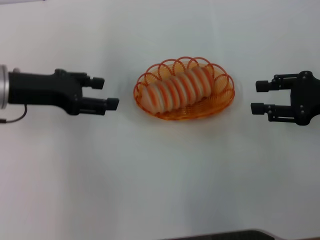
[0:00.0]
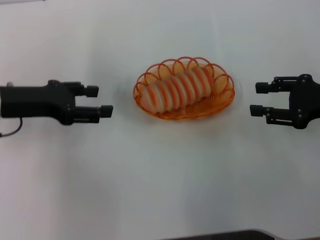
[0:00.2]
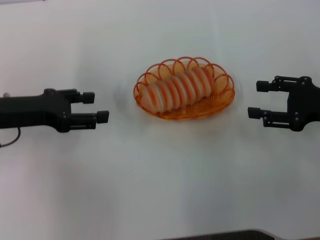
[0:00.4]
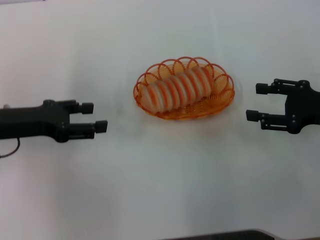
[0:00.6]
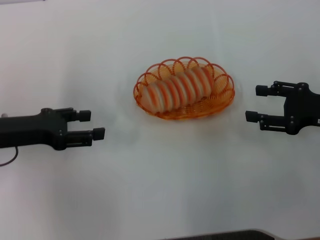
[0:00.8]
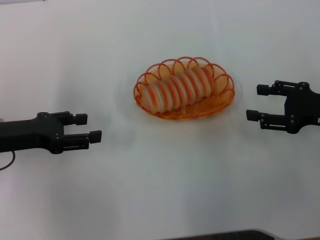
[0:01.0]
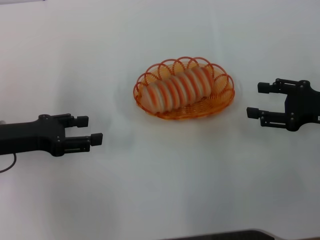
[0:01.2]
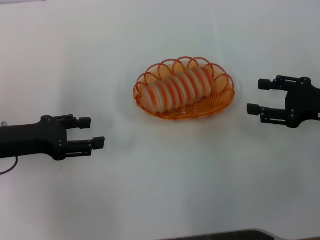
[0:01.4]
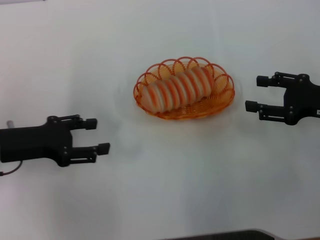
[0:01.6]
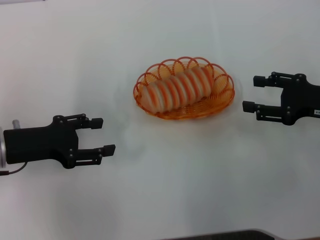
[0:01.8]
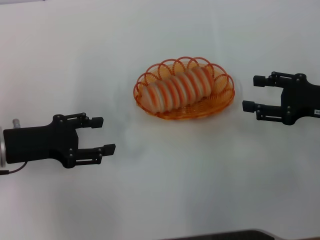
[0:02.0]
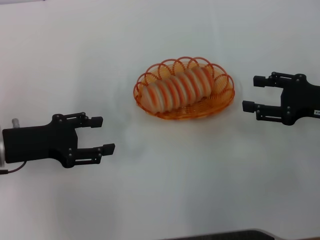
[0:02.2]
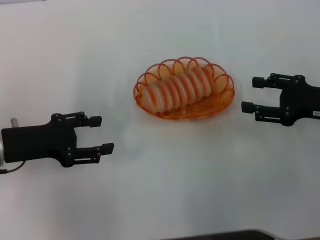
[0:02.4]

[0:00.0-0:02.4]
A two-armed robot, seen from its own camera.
0:00.0 to 0:01.2: The left gripper moves downward and backward, roughly 10 cm.
0:01.2 to 0:02.4: The grippers move only a little.

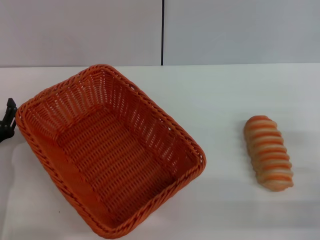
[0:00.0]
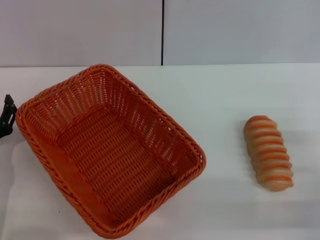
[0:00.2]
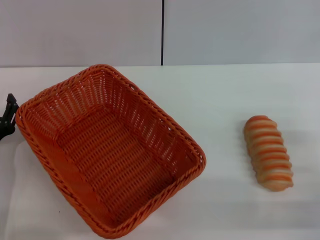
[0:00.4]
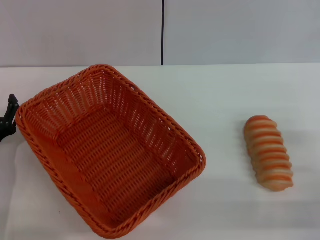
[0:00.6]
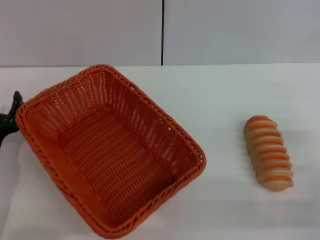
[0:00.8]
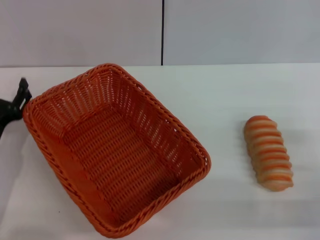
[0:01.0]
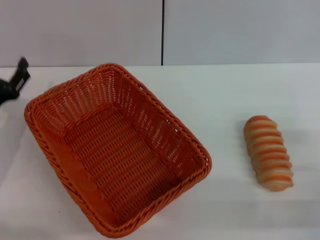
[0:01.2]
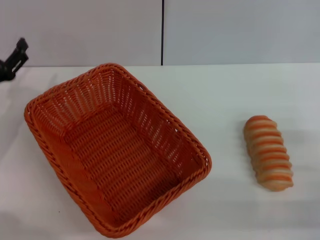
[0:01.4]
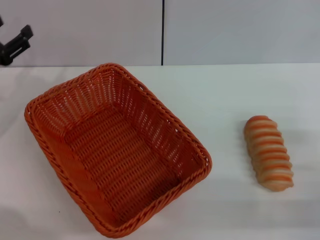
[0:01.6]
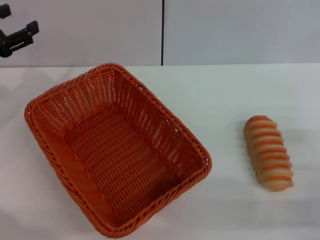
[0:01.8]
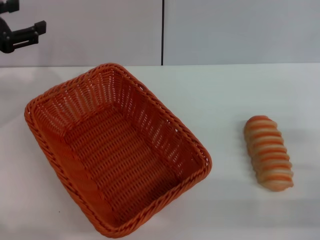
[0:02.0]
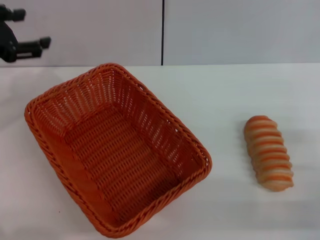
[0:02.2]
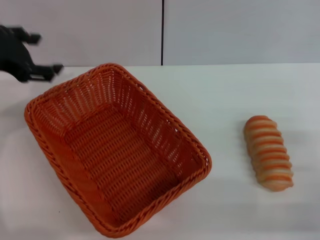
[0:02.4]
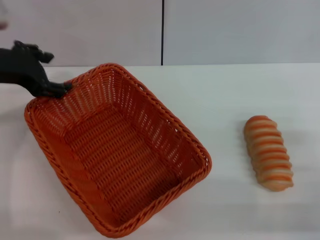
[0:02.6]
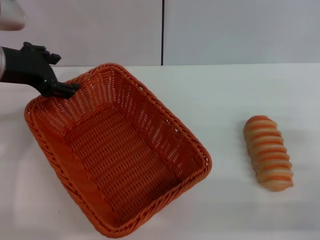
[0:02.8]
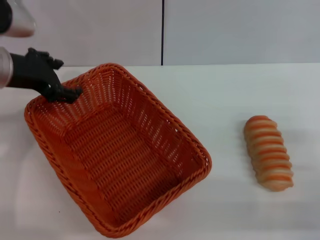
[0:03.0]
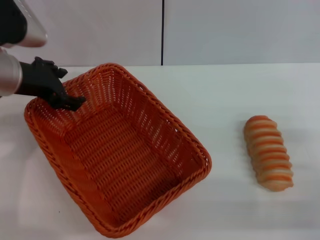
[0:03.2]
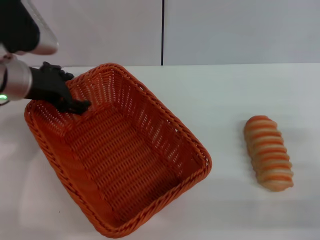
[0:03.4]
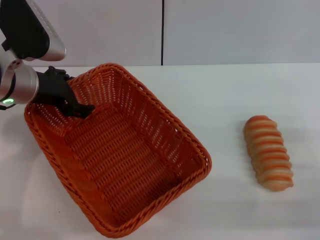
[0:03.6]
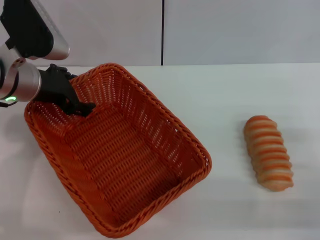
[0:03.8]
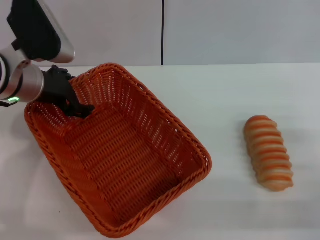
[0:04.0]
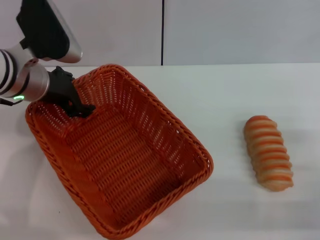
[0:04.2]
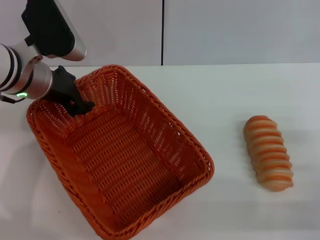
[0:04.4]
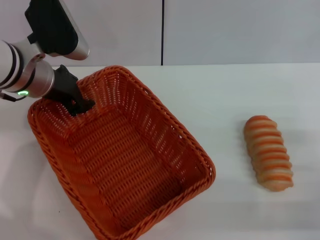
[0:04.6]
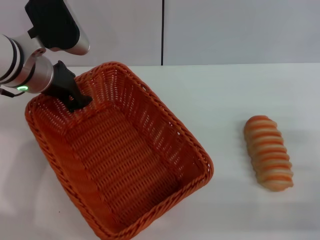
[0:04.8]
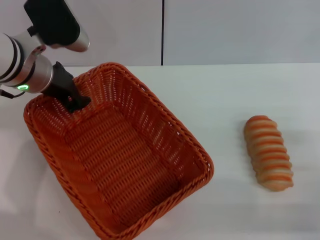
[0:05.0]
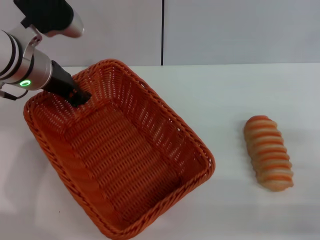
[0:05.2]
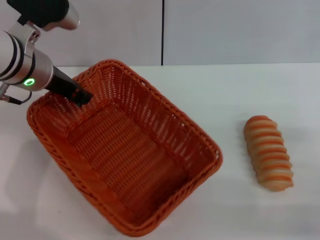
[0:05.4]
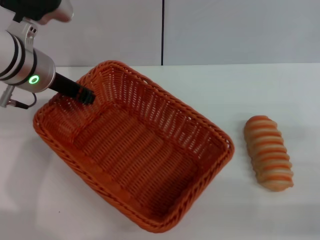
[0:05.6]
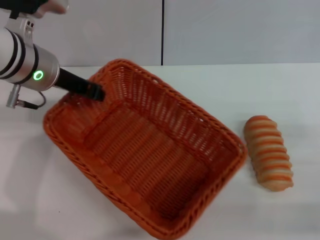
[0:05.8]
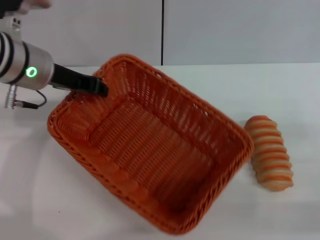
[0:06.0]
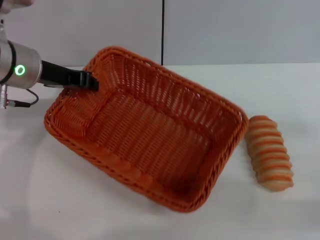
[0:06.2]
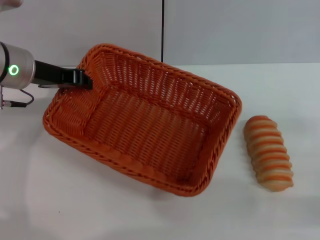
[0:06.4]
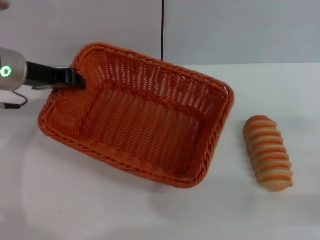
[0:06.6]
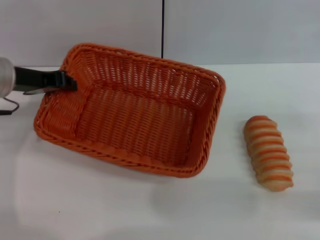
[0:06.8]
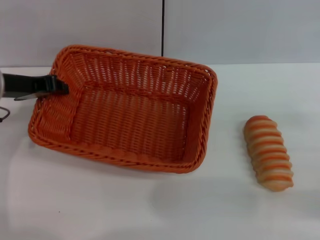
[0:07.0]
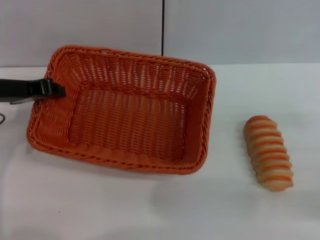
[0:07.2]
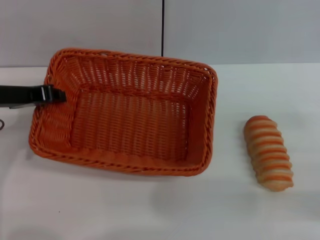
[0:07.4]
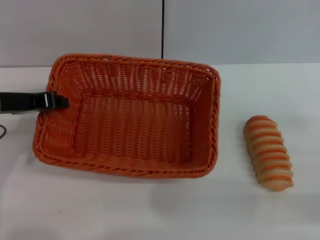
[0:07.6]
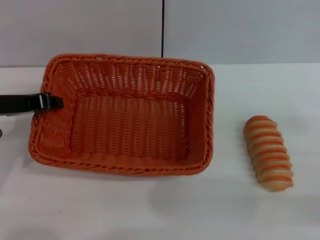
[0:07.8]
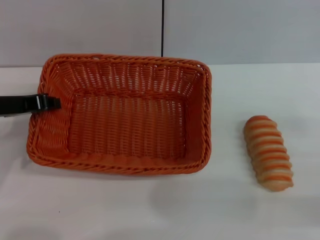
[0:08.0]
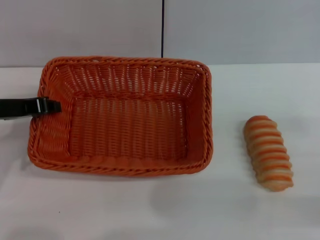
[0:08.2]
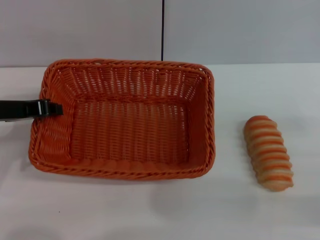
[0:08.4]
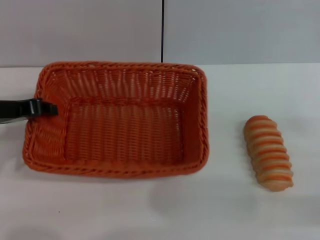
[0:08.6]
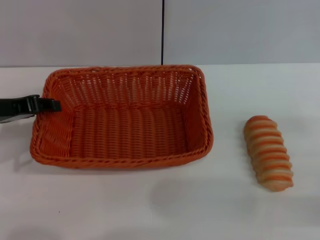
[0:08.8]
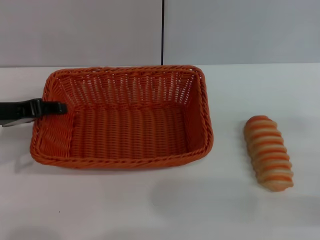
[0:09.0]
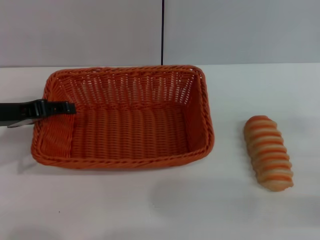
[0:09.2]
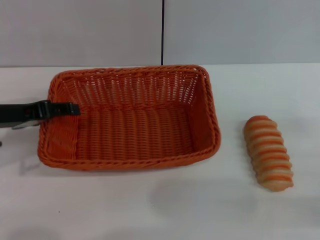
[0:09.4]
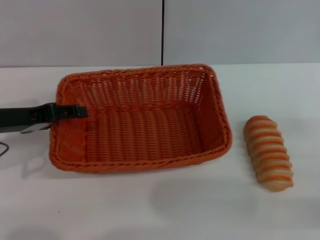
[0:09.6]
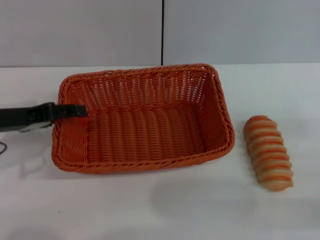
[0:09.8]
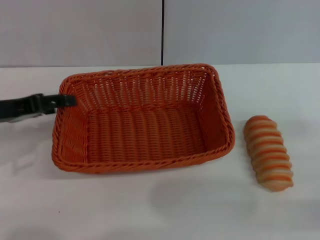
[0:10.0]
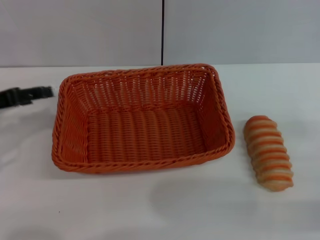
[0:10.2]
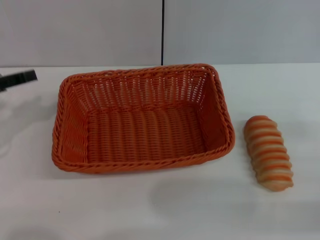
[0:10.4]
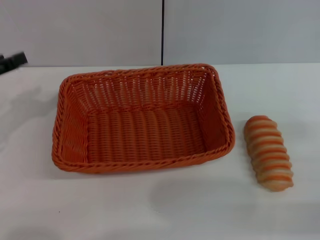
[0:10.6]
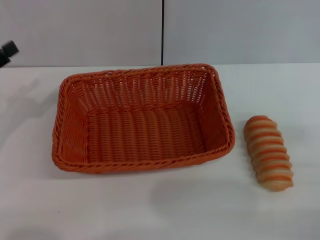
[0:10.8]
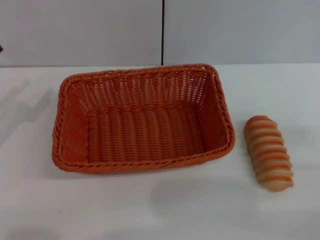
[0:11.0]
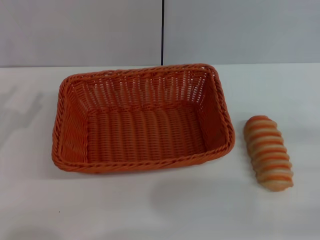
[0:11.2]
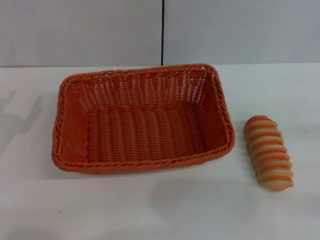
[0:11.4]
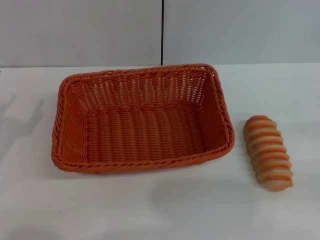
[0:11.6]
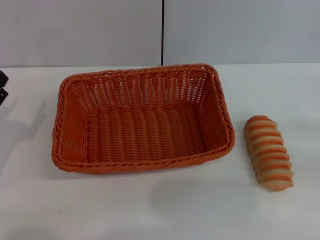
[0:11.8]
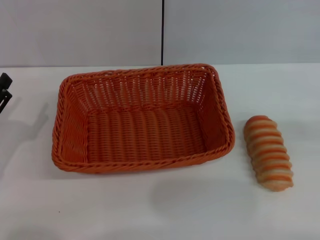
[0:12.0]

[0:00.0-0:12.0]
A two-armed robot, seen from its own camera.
Step, 0:00.0 to 0:05.8: Pick up the light basket with the left gripper.
Step, 0:06.0 to 0:10.0: Place the light basket in the center of view with the left gripper.
0:00.0 to 0:01.6: The left gripper heads upward, forward and to the left, covering some 15 cm.
0:01.6 to 0:03.0: The left gripper heads to the right and upward, covering approximately 15 cm.
0:03.0 to 0:04.4: The left gripper moves approximately 5 cm.
0:04.4 to 0:06.0: The left gripper closes up.
0:06.0 to 0:07.6: The left gripper travels to the left and backward by roughly 10 cm.
0:07.6 to 0:09.0: The grippers move only a little.
0:09.0 to 0:10.4: The left gripper moves to the left, some 5 cm, and opens.
0:10.4 to 0:12.0: The right gripper shifts roughly 10 cm upward and to the right. The left gripper moves downward and backward, about 15 cm.

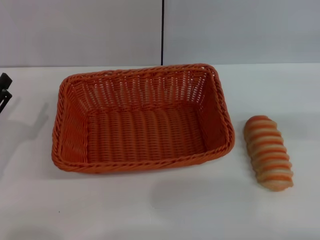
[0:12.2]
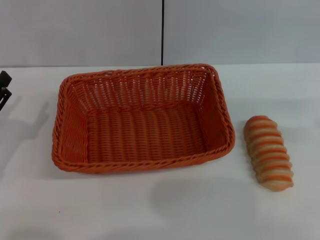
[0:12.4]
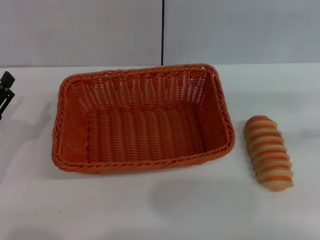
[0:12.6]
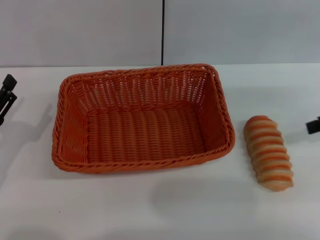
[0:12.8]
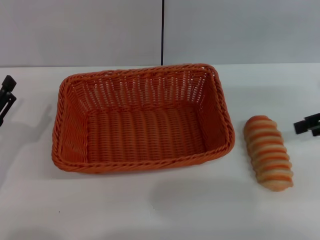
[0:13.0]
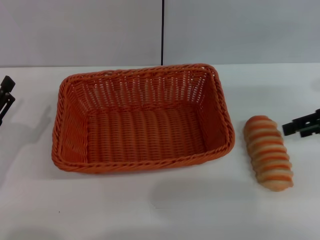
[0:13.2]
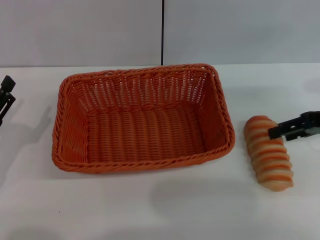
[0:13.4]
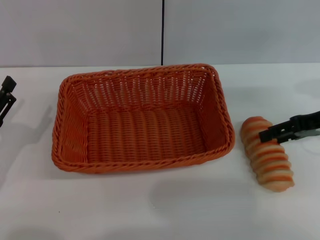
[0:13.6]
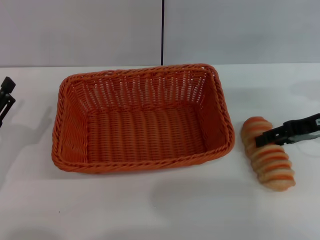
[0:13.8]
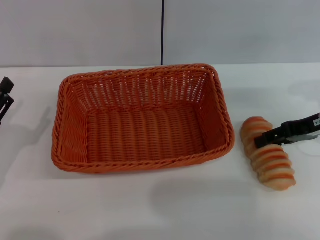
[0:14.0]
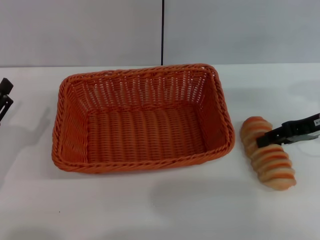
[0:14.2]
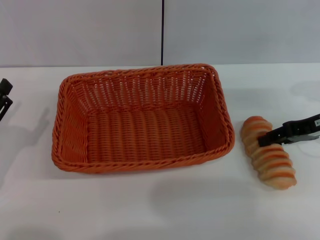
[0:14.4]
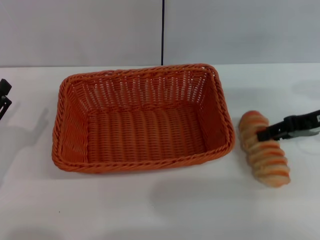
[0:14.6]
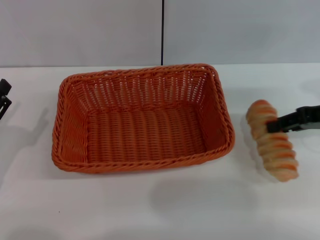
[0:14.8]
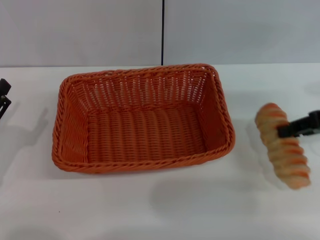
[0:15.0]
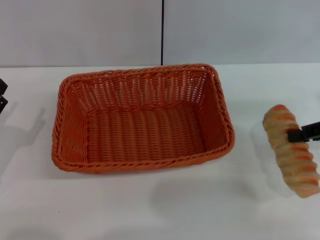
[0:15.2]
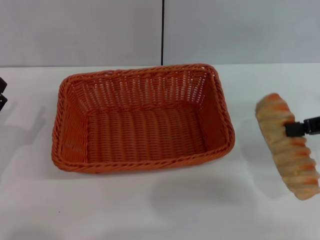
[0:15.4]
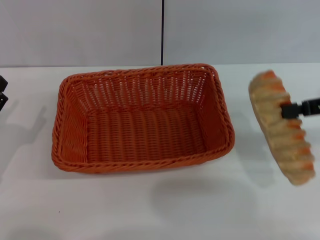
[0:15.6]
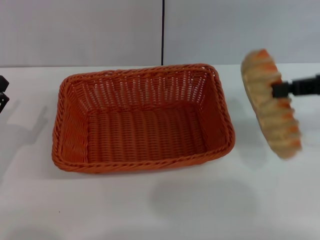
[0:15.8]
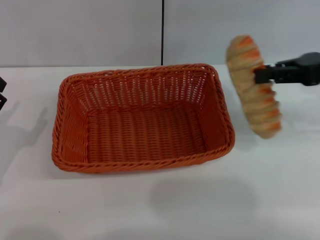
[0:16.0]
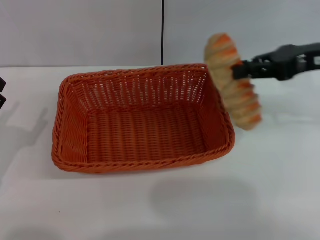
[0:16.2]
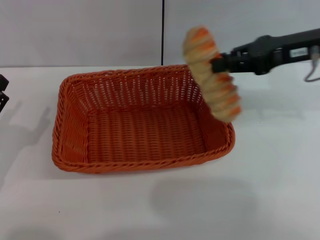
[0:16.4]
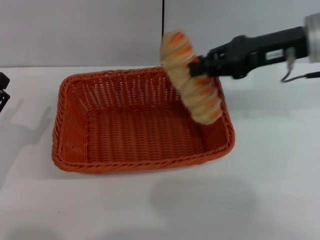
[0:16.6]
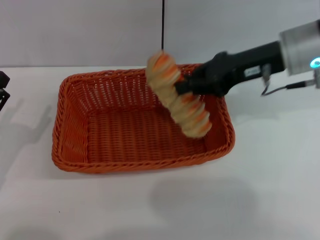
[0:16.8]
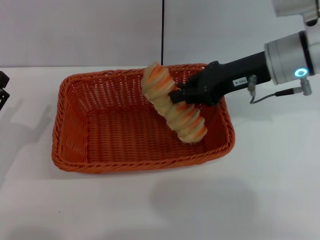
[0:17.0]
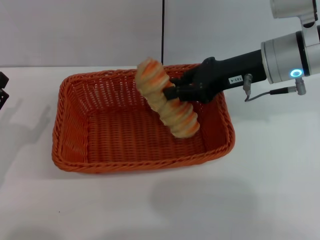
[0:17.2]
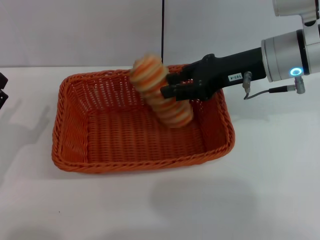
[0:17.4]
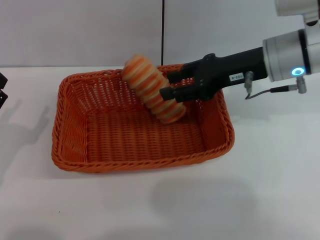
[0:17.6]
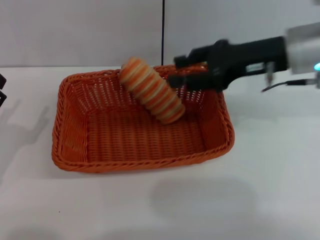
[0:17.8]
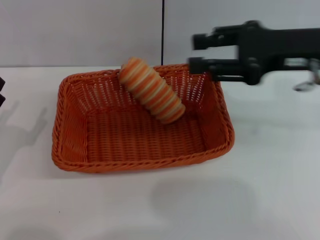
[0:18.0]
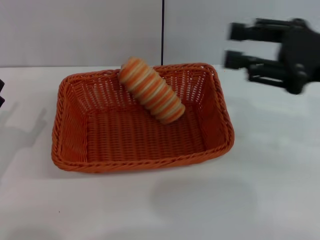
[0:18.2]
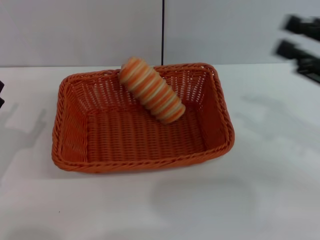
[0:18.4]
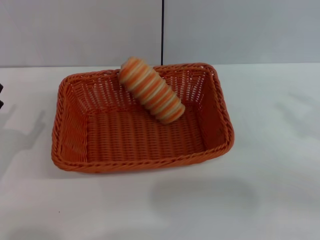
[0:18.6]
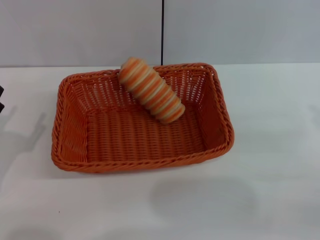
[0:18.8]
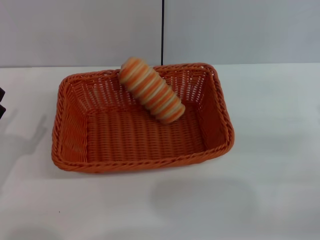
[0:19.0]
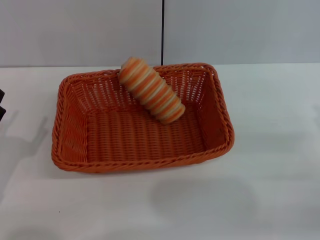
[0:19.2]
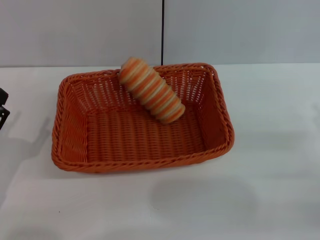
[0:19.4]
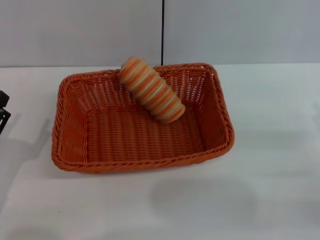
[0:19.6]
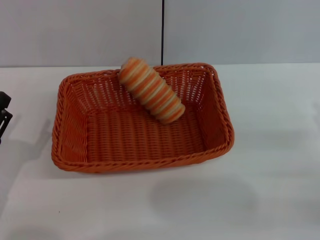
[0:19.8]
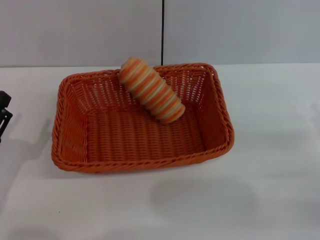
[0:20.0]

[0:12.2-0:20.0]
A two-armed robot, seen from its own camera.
Step, 0:12.2 to 0:14.8: Pick up the long bread with the right gripper.
Step, 0:15.2 to 0:17.6: Place the long bread into the light basket with the right gripper.
0:12.2 to 0:13.8: The right gripper shifts roughly 20 cm to the left, downward and forward.
0:13.8 to 0:15.4: The right gripper shifts about 10 cm upward and backward, and closes up.
0:15.4 to 0:16.8: The right gripper moves to the left and forward, some 15 cm.
0:16.8 to 0:18.4: The right gripper goes some 15 cm backward and to the right, and opens up.
0:18.4 to 0:20.0: The right gripper travels downward and backward by about 15 cm.
